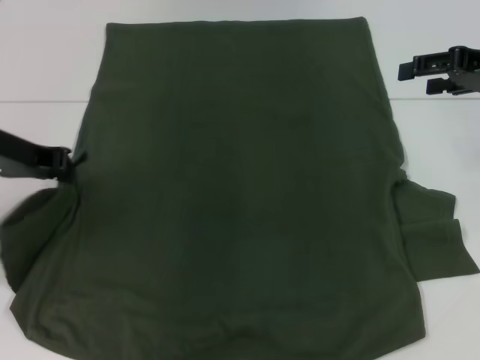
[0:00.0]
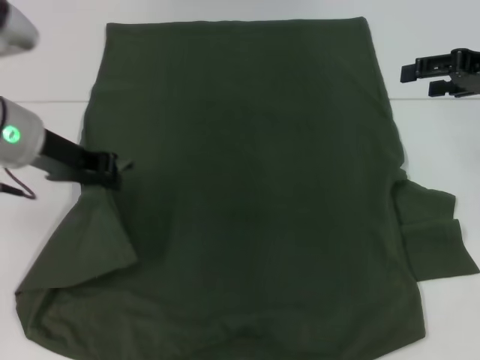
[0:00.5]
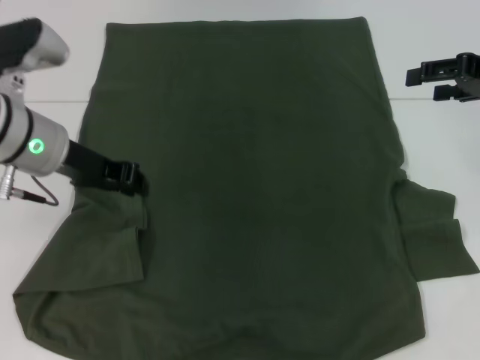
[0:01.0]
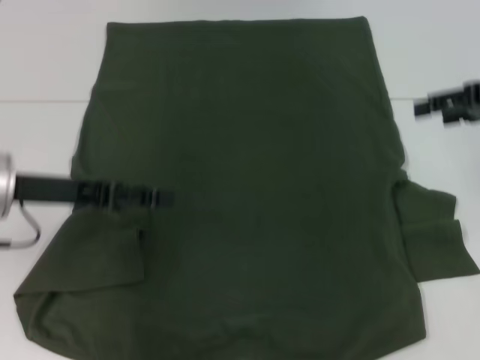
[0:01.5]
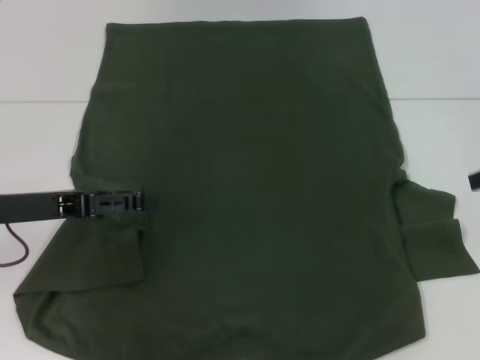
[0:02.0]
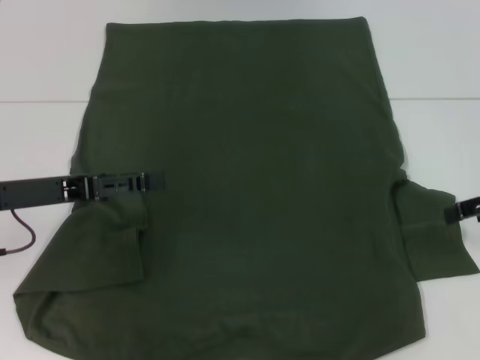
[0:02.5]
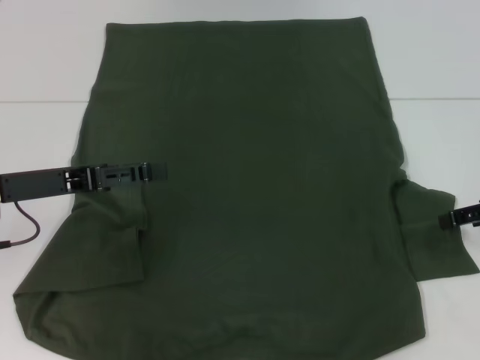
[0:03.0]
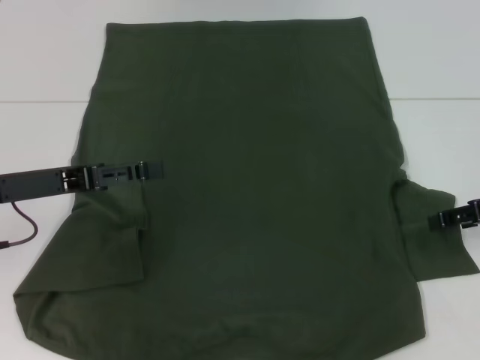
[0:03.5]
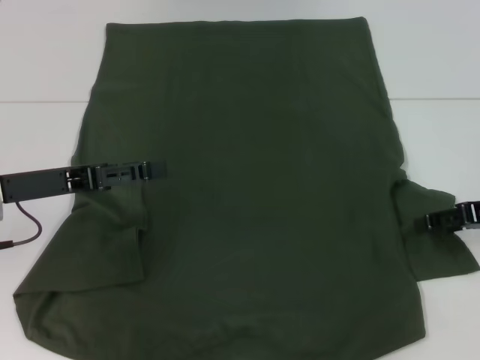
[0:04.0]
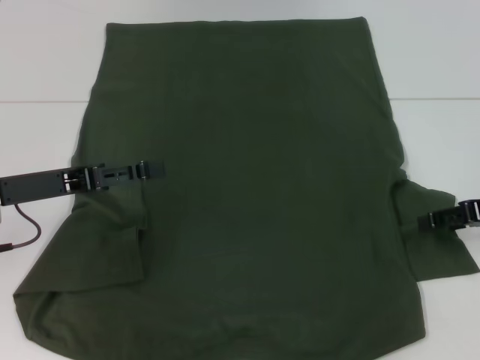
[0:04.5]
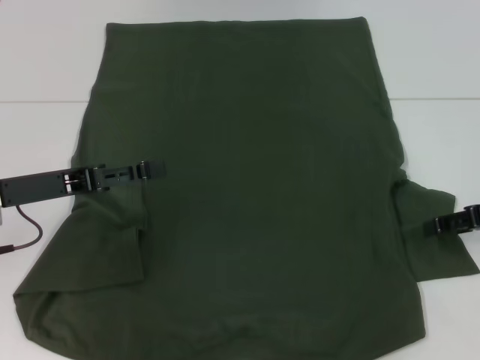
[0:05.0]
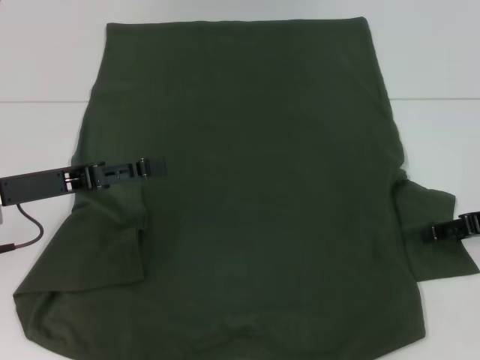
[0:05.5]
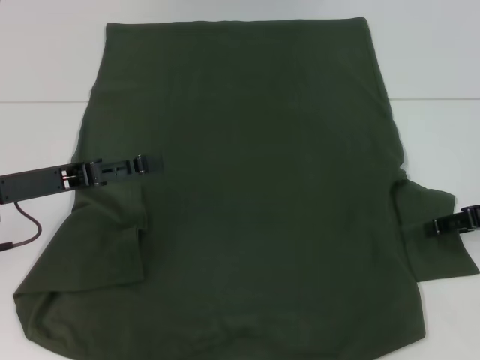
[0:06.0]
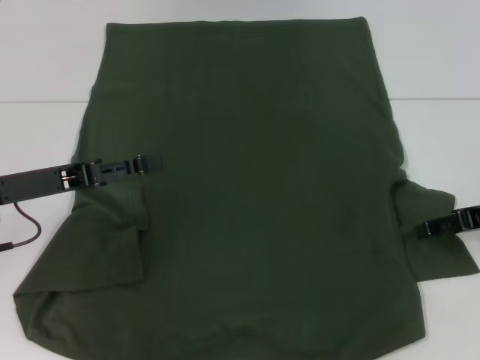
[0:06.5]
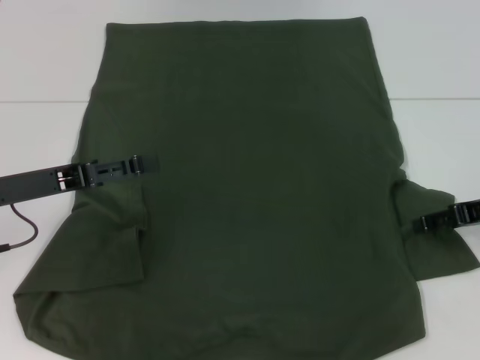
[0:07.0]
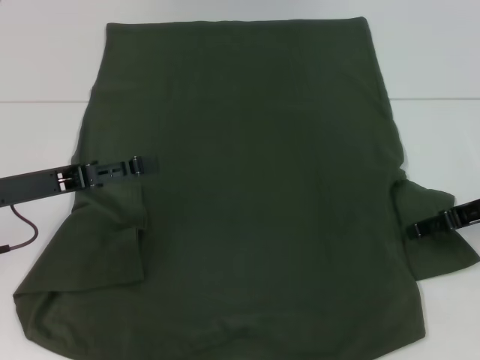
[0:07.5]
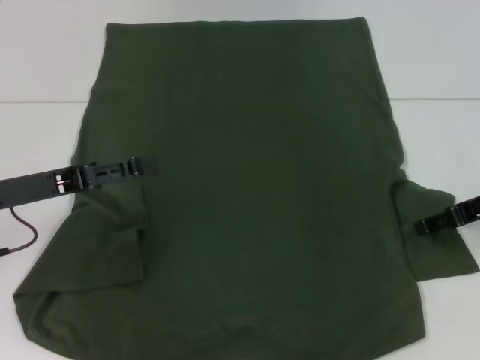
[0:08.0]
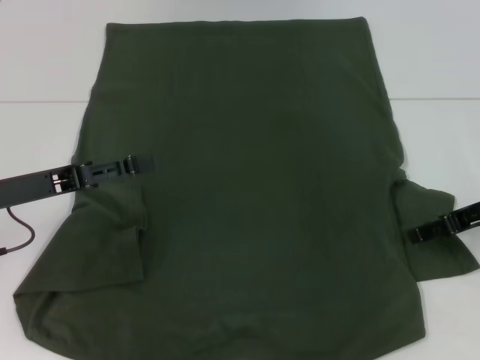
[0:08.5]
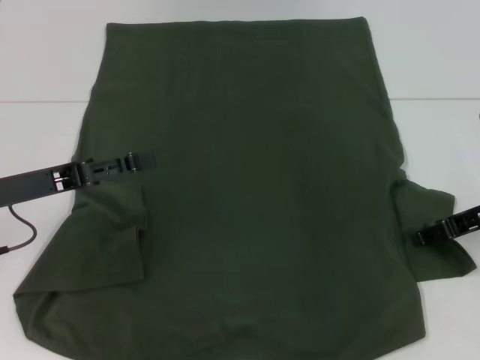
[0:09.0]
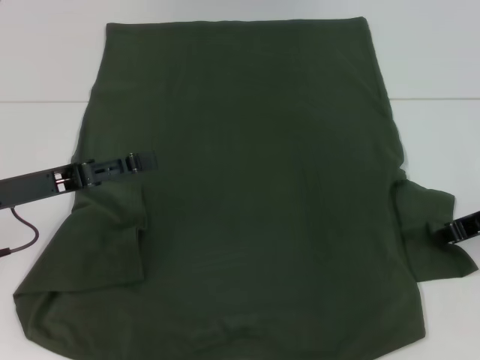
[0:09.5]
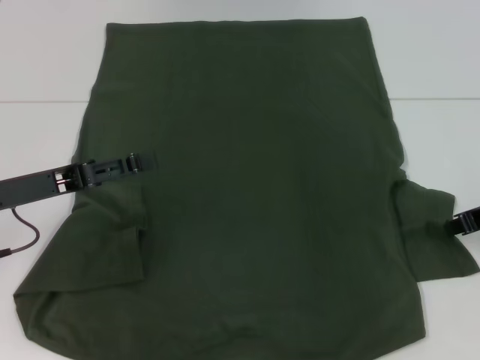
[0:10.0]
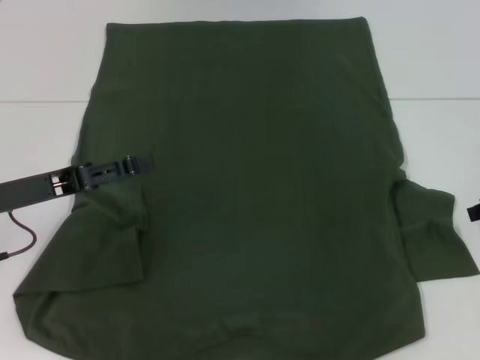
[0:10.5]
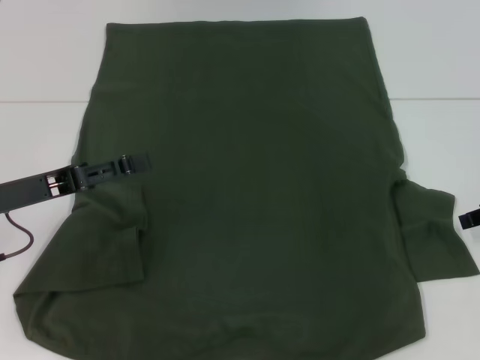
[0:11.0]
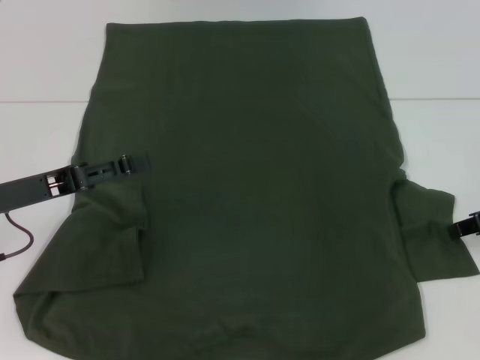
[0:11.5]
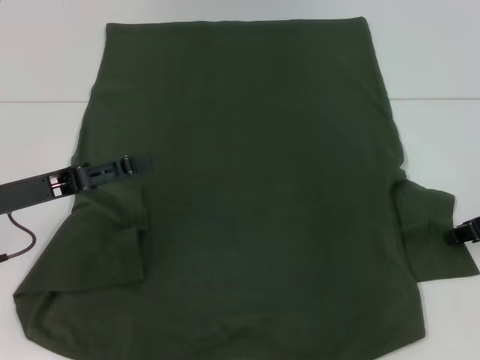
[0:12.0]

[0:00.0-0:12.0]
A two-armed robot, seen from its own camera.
0:00.0 to 0:02.0: The left gripper goes roughly 10 cm backward and downward, and opens its fingers; the right gripper moves backward, roughly 5 cm.
0:02.0 to 0:04.0: The right gripper heads downward, covering some 10 cm.
0:04.0 to 0:08.0: There are only small adjustments of the grippers.
0:08.0 to 0:10.0: The right gripper closes.

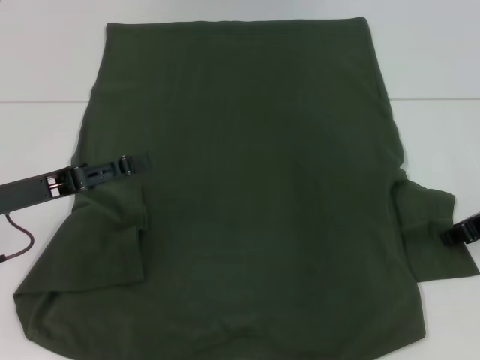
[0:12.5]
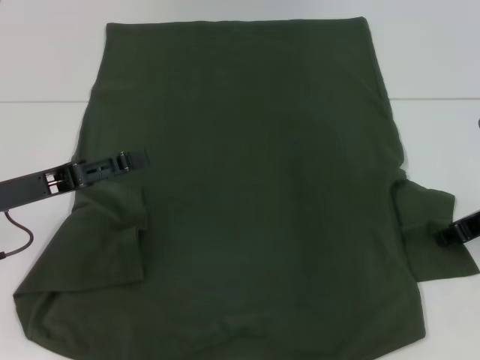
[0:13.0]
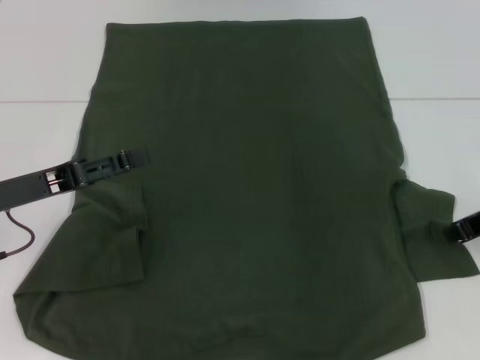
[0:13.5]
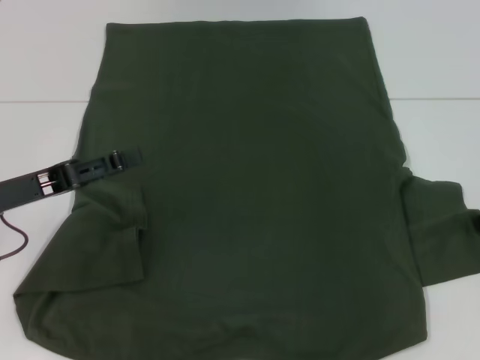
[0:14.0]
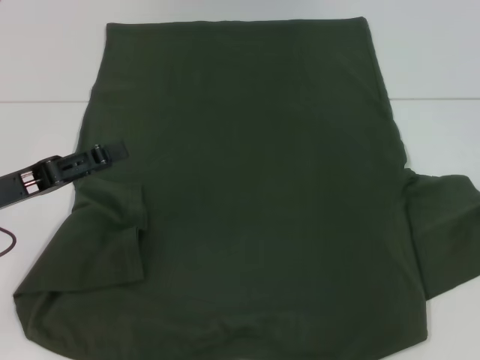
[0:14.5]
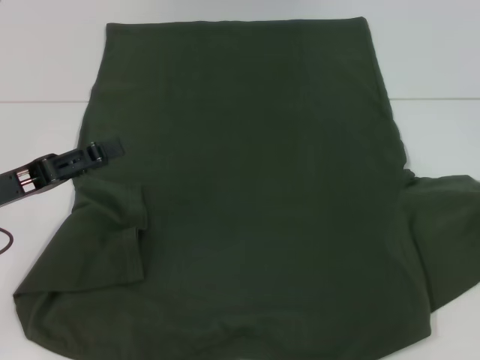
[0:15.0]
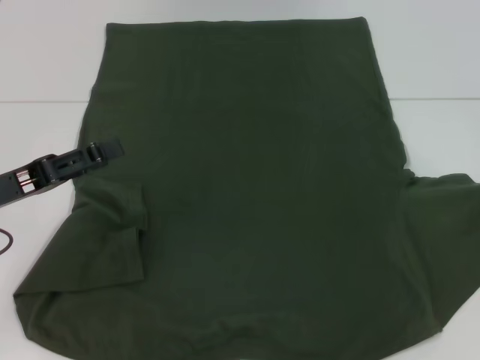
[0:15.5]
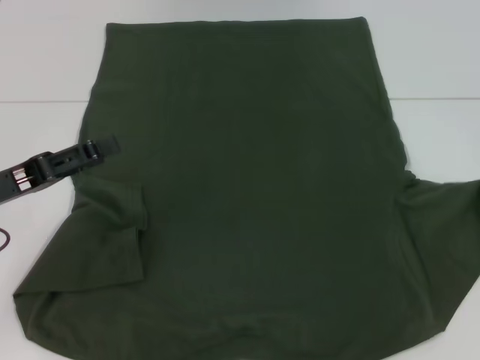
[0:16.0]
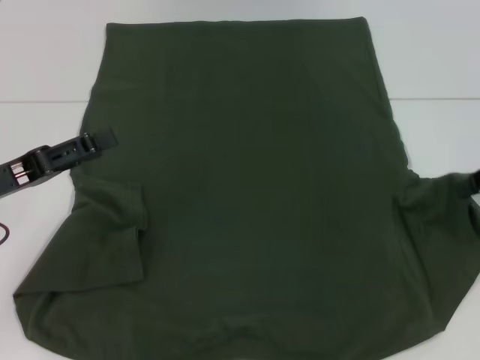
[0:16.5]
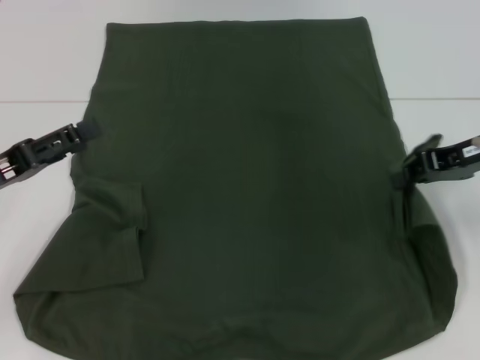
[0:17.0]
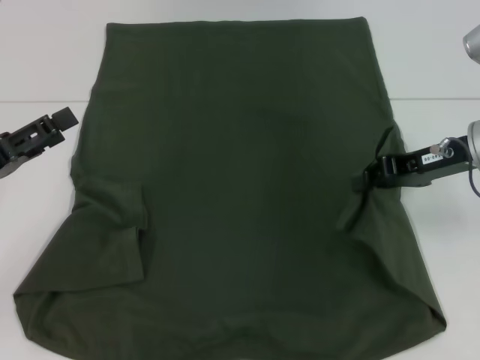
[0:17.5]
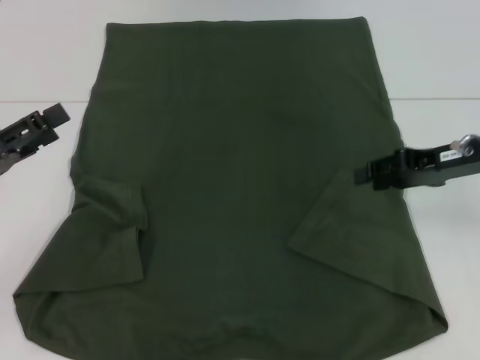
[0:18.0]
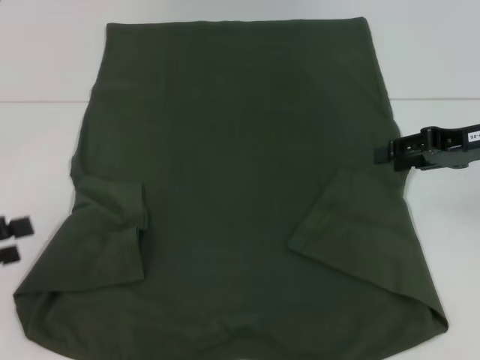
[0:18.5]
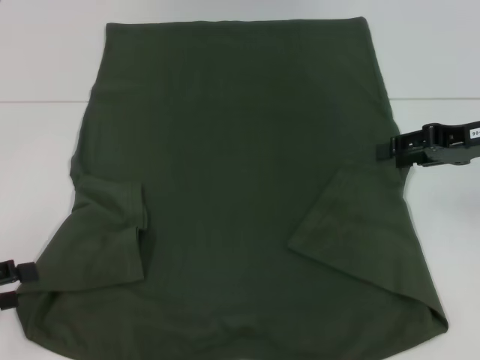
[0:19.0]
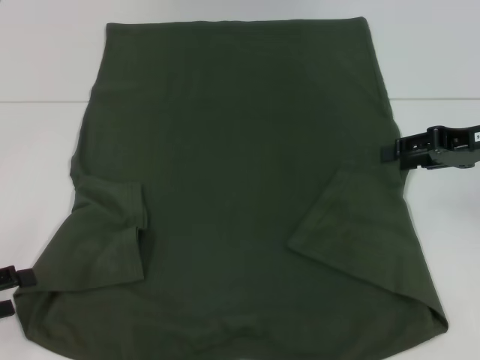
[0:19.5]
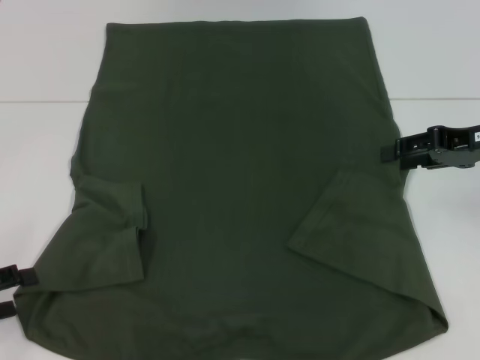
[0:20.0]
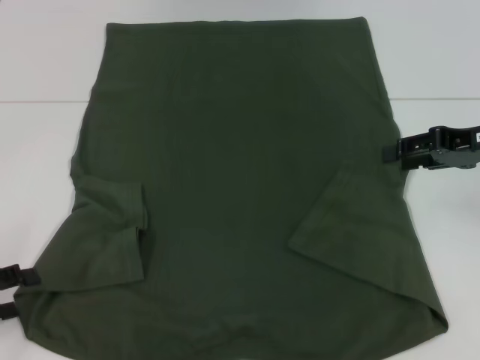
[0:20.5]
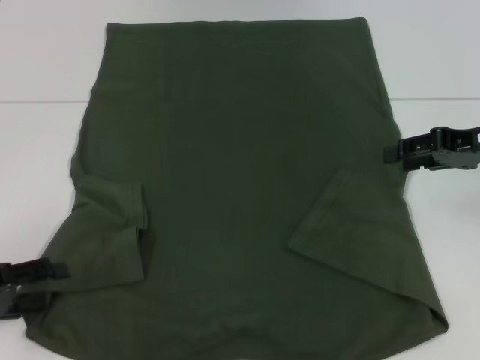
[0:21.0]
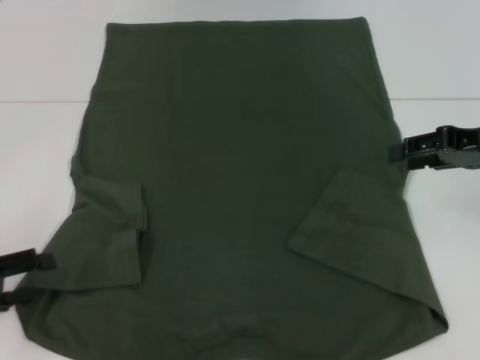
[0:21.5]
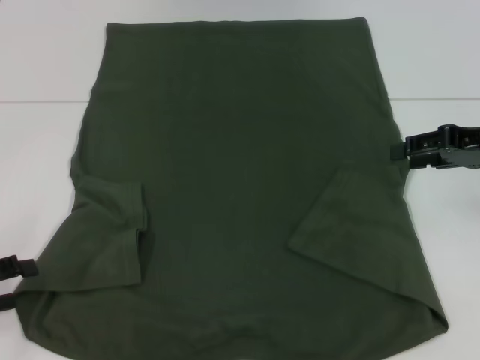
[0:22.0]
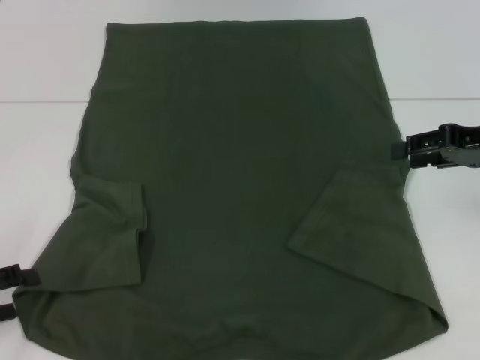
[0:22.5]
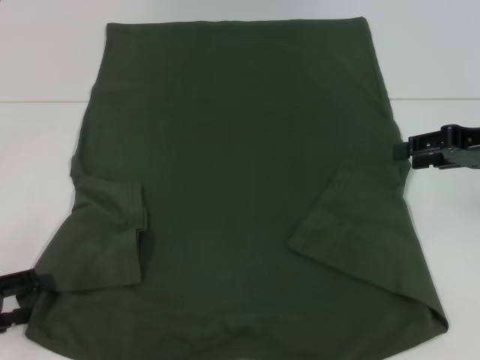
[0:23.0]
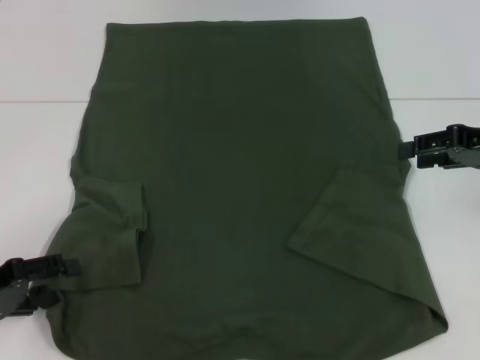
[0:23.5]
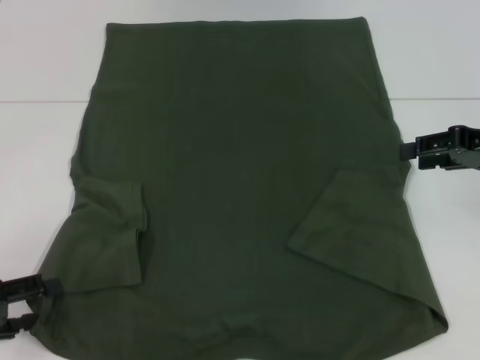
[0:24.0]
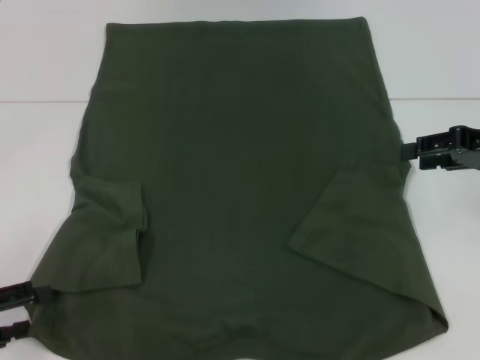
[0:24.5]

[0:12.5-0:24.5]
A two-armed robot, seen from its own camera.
Step, 0:12.5 to 0:17.5: Fold the bottom right sleeve with your right hand.
0:12.5 to 0:14.5: The right gripper moves to the right, about 5 cm, and closes its fingers.
0:14.5 to 0:16.5: The grippers make only small movements.
0:16.5 to 0:18.5: The right gripper opens up. The left gripper moves to the left and backward, some 10 cm.
0:18.5 to 0:20.5: The grippers make only small movements.
0:22.5 to 0:24.5: The grippers make only small movements.

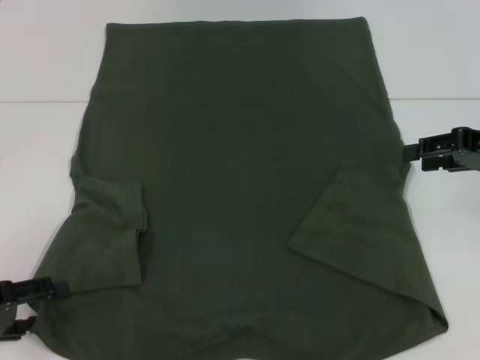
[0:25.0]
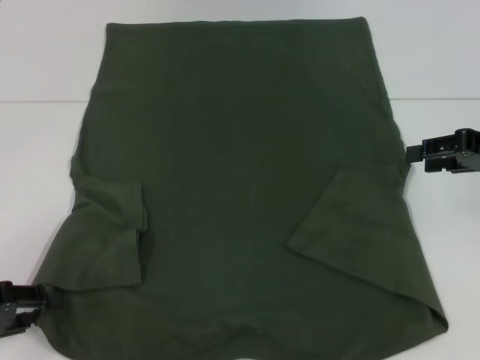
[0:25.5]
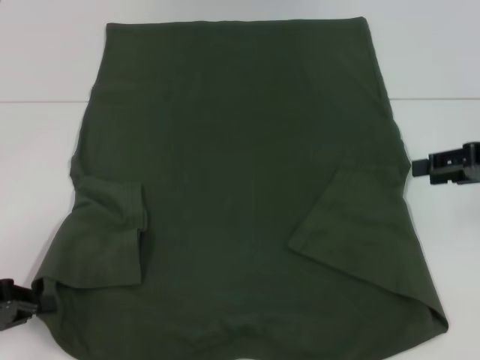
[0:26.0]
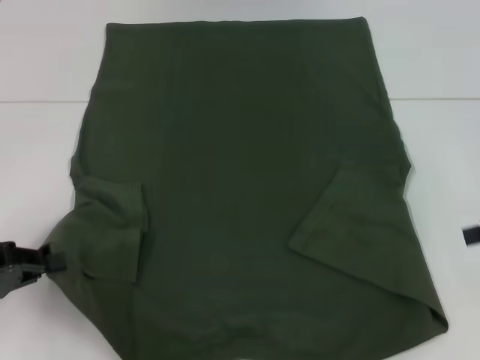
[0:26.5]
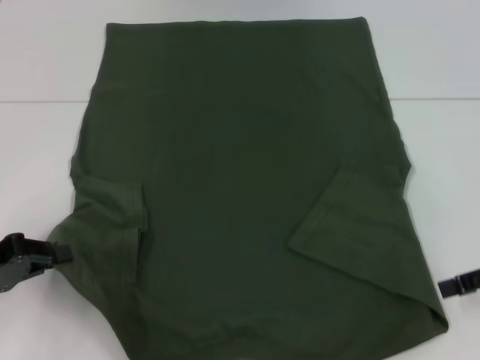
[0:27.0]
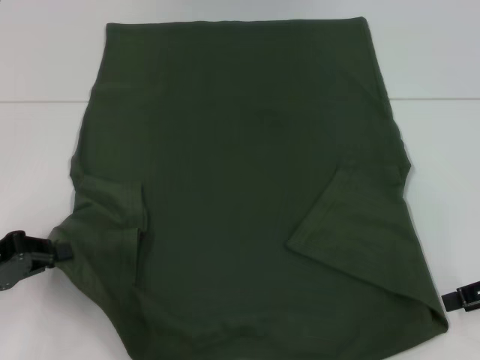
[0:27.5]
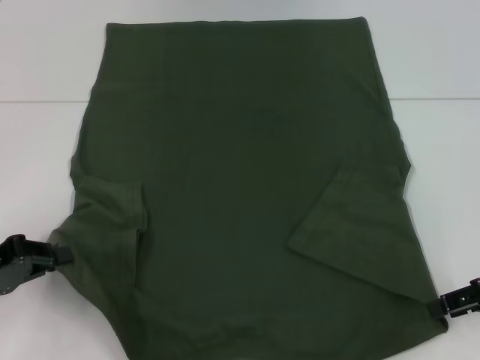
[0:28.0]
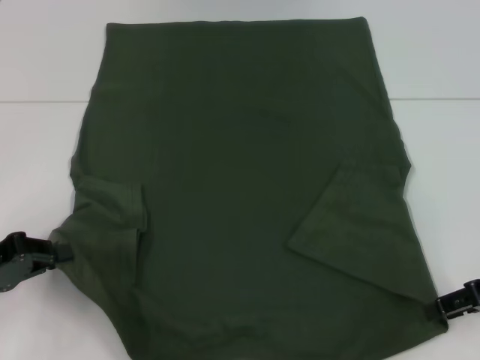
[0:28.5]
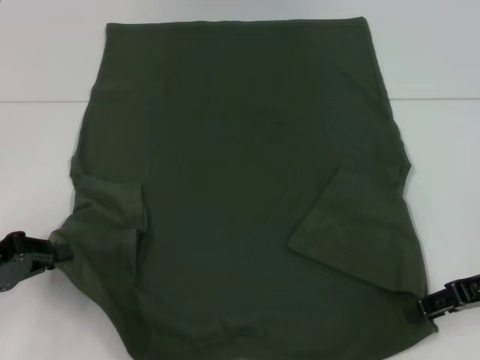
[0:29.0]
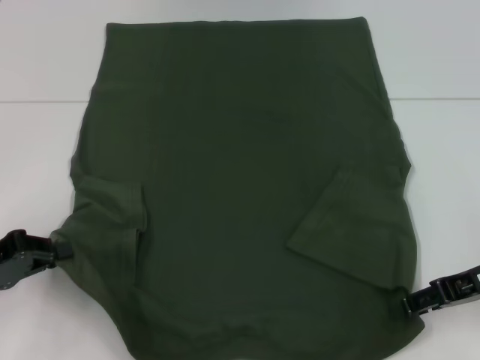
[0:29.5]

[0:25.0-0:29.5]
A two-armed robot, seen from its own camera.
Step, 0:26.5 to 0:29.0: Grab the bottom right corner with your right hand.
0:25.0 to 0:27.0: The right gripper is displaced backward by some 5 cm; the left gripper closes its fingers.
0:27.0 to 0:29.5: The right gripper travels to the left by about 5 cm.
